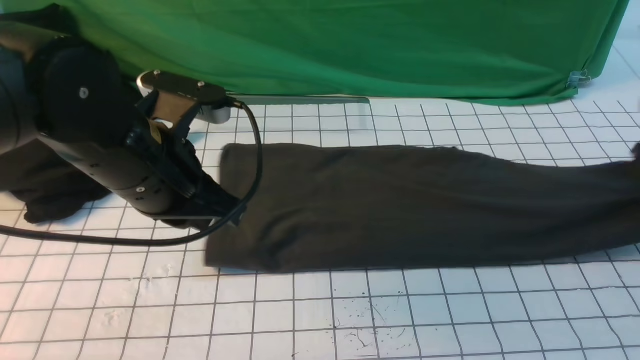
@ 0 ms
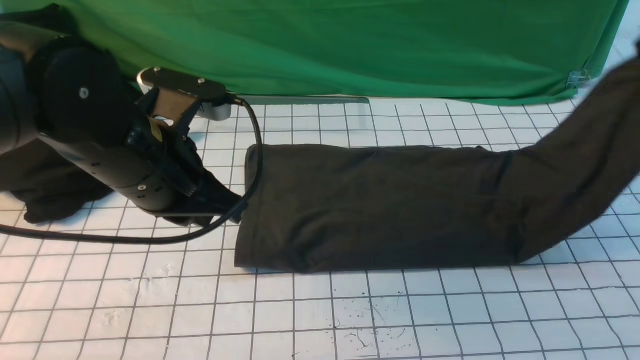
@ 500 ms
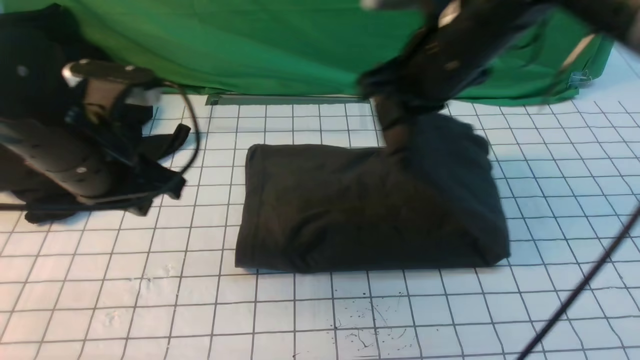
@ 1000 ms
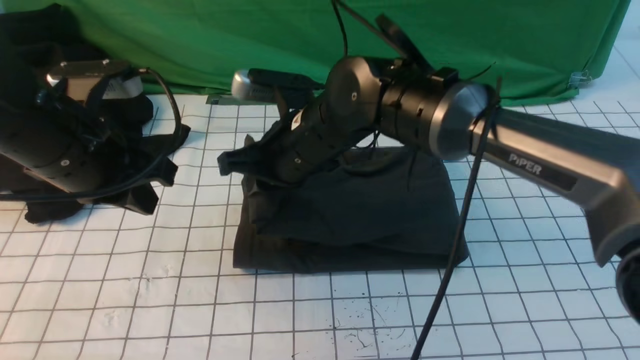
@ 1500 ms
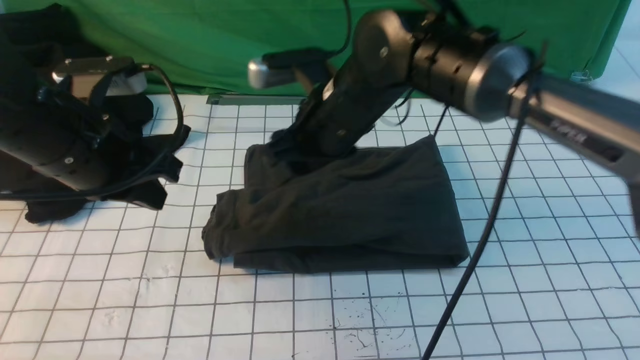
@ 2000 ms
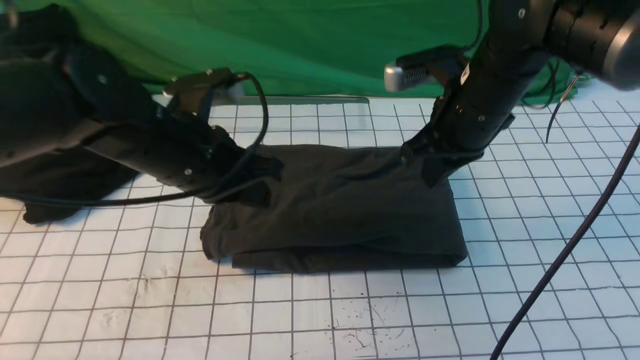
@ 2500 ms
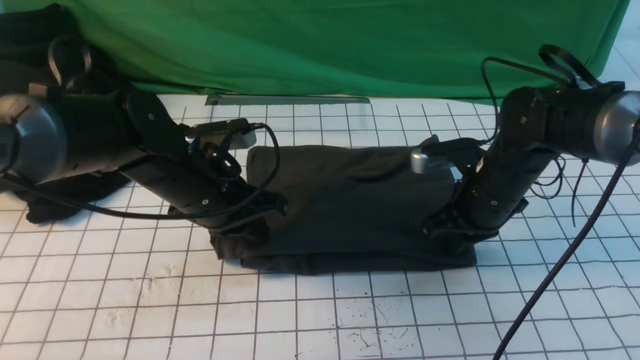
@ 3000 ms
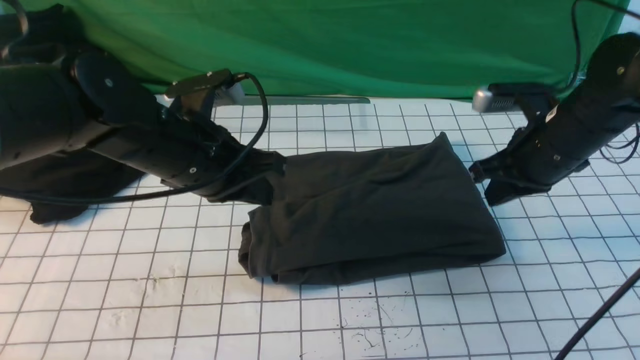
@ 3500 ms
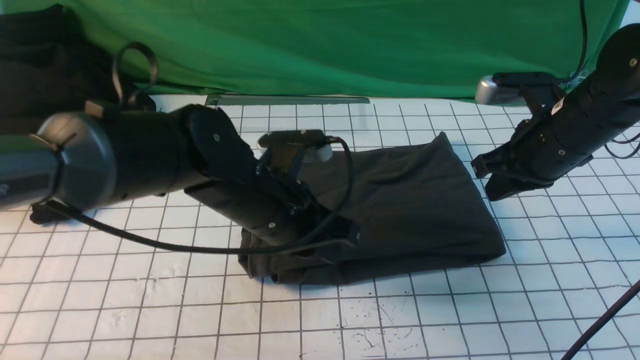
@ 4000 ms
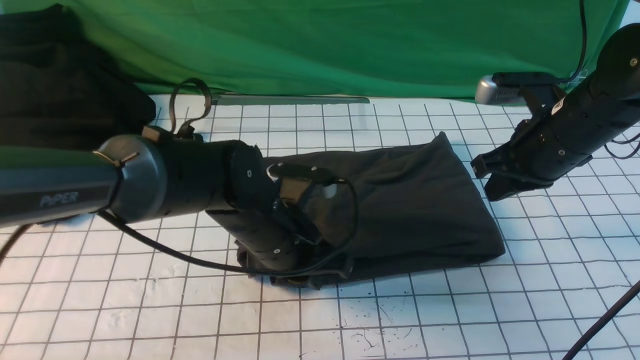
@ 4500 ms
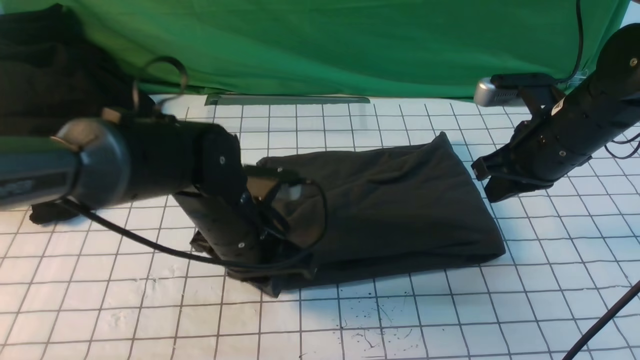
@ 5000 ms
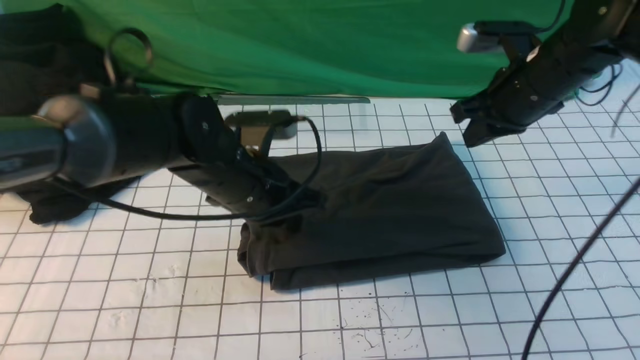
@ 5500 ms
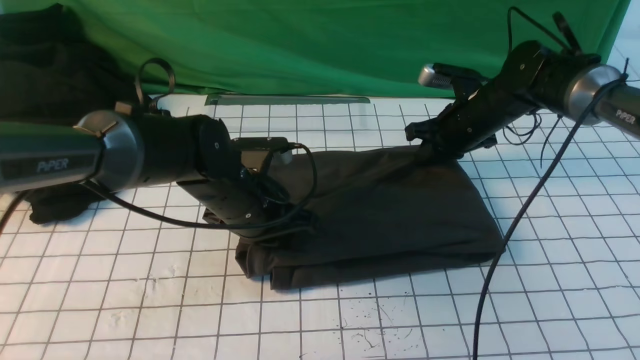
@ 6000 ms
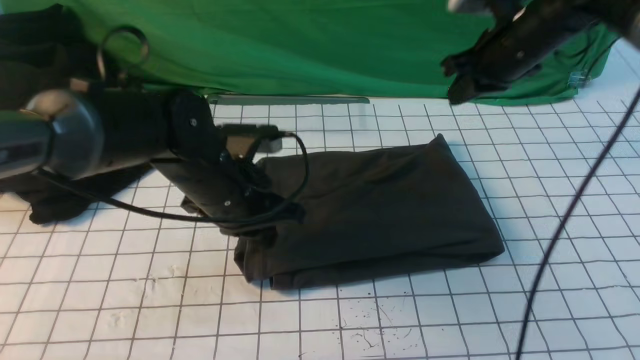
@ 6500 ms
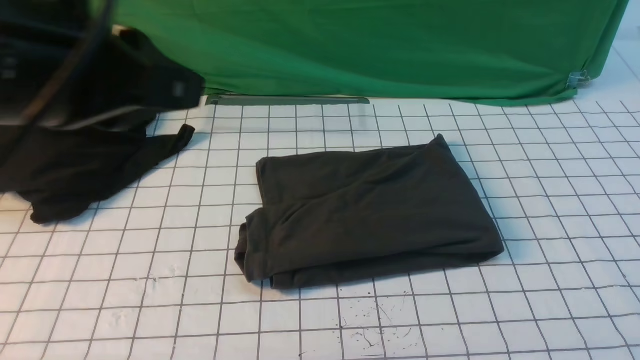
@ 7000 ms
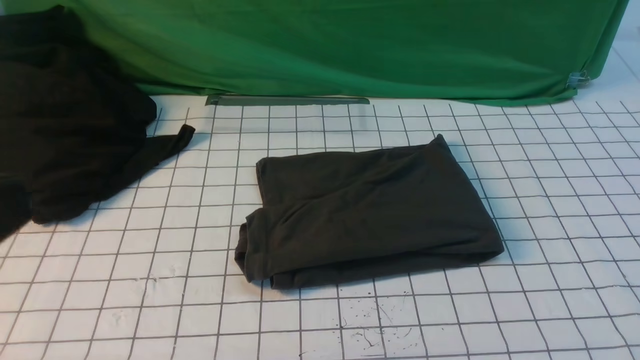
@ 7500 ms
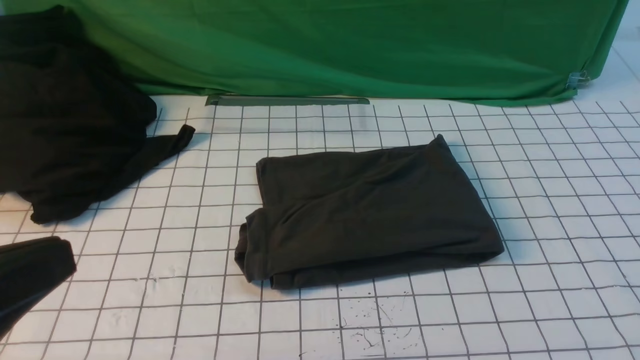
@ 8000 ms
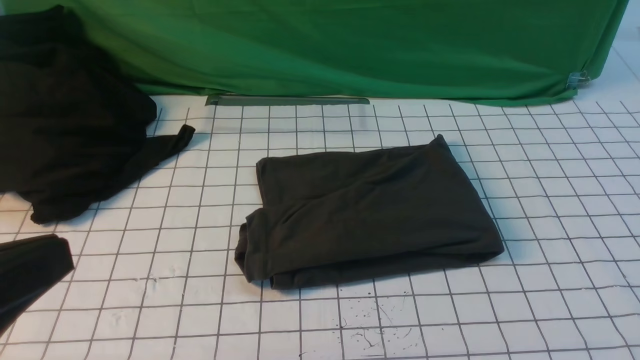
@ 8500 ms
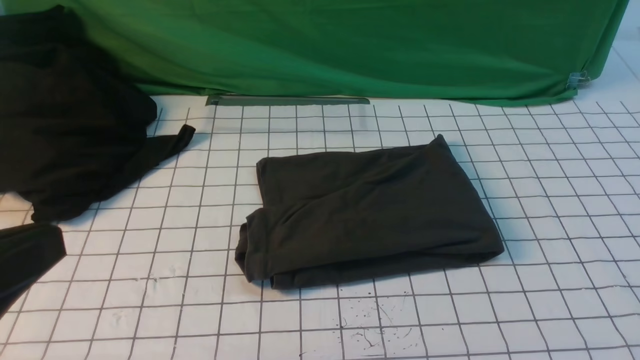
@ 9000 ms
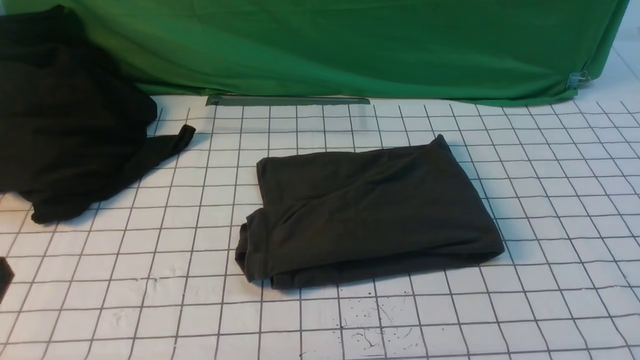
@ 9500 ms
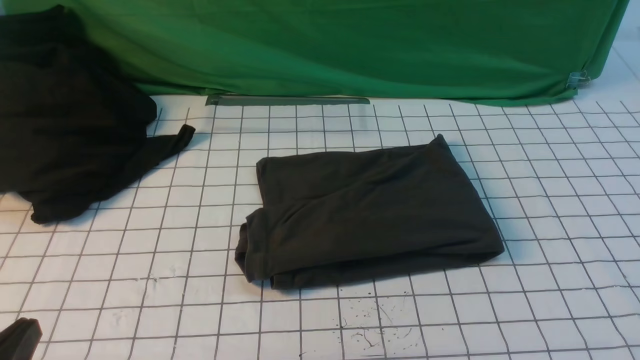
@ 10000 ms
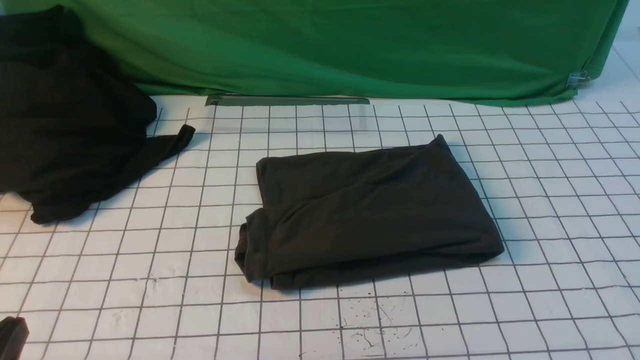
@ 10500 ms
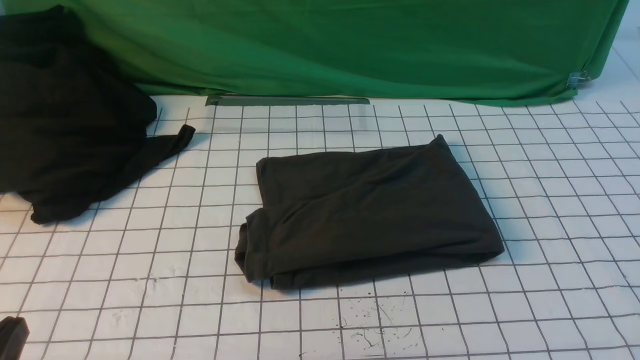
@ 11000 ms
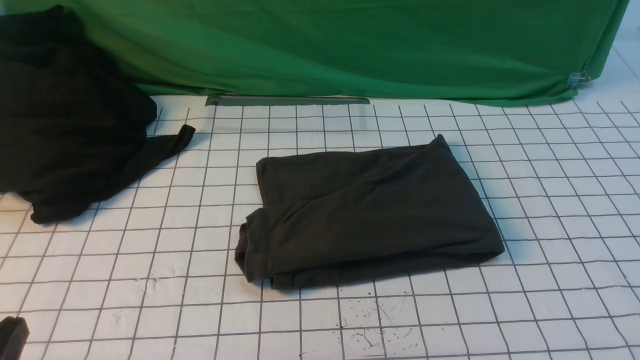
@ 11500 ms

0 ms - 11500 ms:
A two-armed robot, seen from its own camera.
Step, 500 ms - 1500 ms: use the right arm to drag the right edge of the fabric to the left and folds it over the left edge.
0 ms - 2000 ms: The left gripper goes some 5 cm to the left; the right gripper goes roughly 40 cm to the left, and opens.
2000 ms - 4000 ms: The left gripper shifts roughly 15 cm to the right and downward; the right gripper goes approximately 20 cm to the right, and closes its fingers.
4000 ms - 6000 ms: The left gripper shifts by approximately 10 cm. Meanwhile the right gripper shifts some 15 cm forward and downward.
6000 ms - 7500 ms: The right gripper heads backward and upward, covering approximately 50 cm. The left gripper is displaced backward, upward and to the left by roughly 40 cm.
7500 ms - 9500 ms: The left gripper travels downward by approximately 15 cm.
9500 ms - 11500 ms: The left gripper moves downward, some 5 cm.

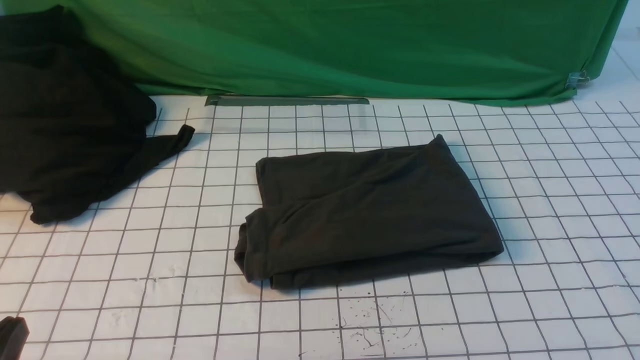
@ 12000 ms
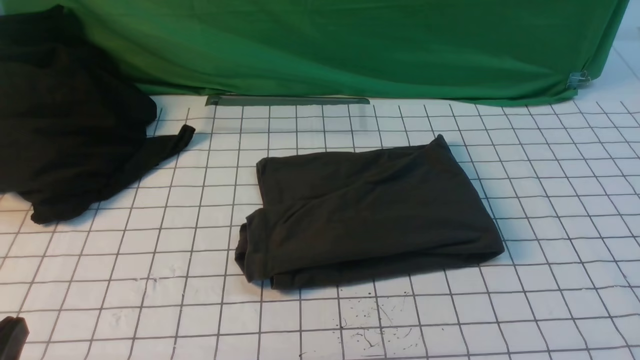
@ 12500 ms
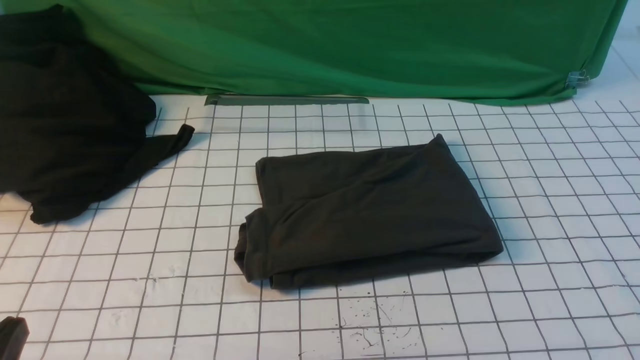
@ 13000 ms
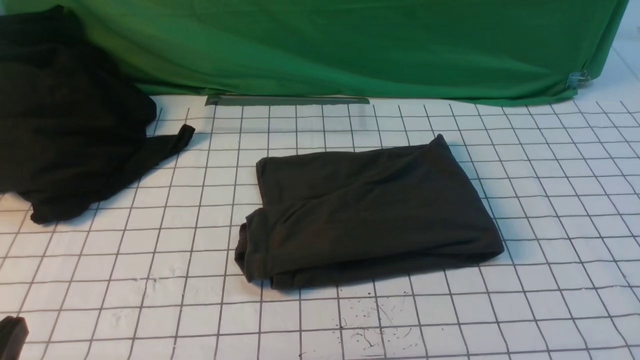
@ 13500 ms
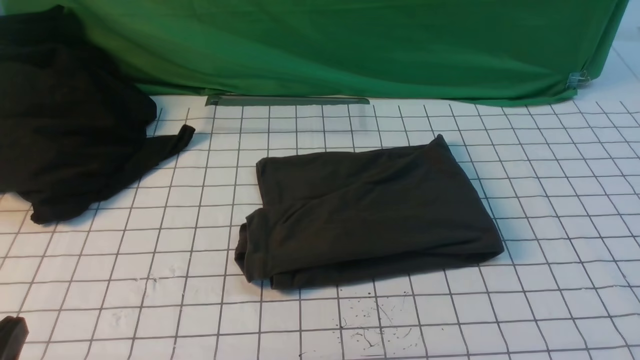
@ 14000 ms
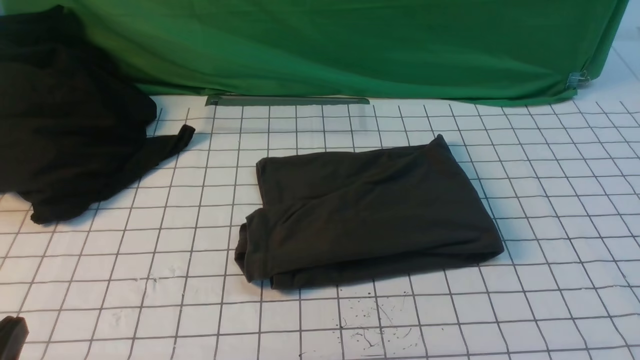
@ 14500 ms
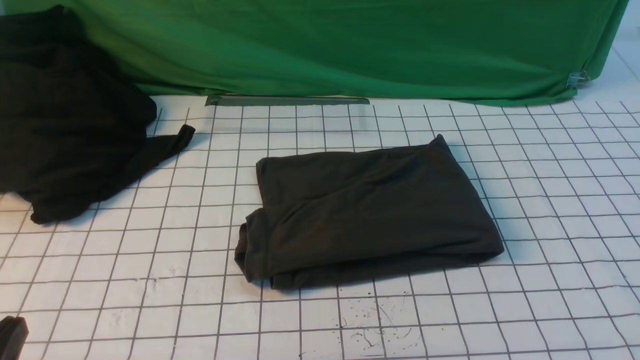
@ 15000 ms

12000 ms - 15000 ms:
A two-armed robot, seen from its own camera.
13500 ms - 15000 ms: Neither gripper changes place.

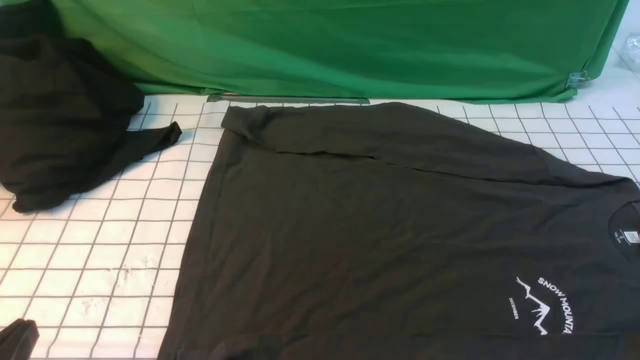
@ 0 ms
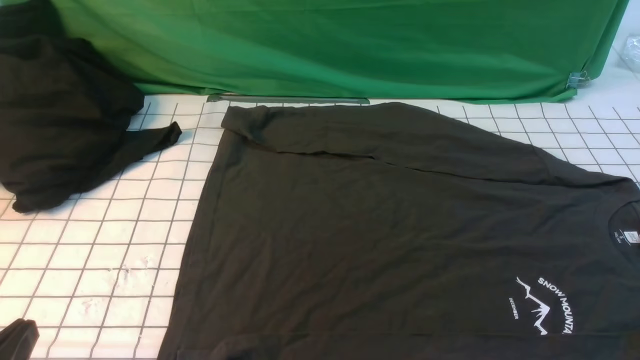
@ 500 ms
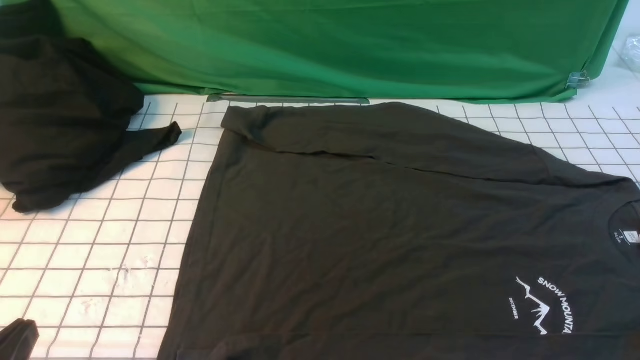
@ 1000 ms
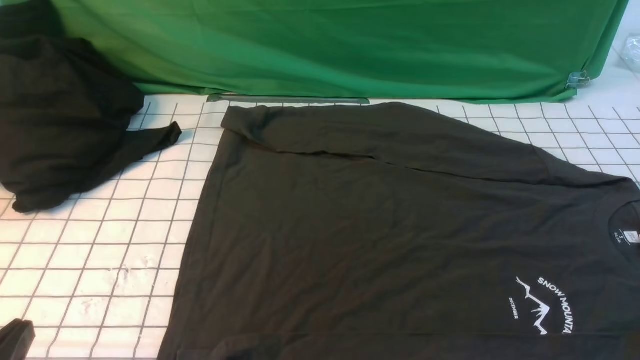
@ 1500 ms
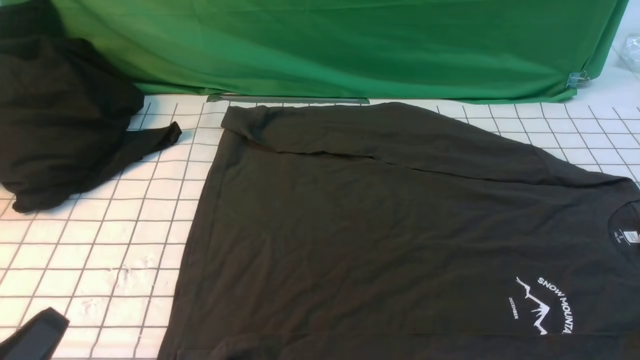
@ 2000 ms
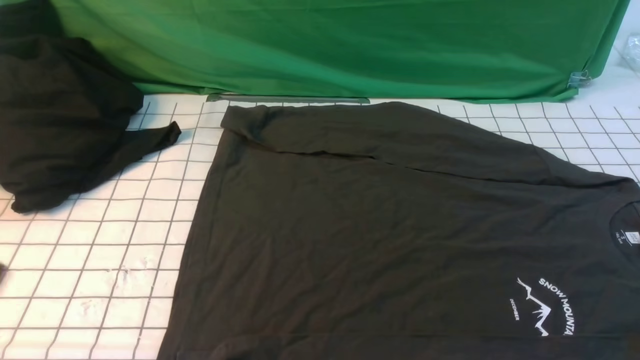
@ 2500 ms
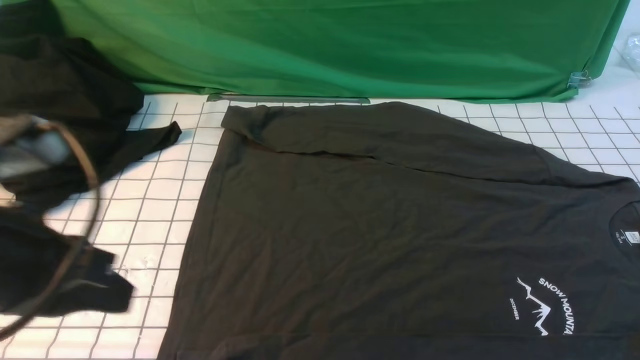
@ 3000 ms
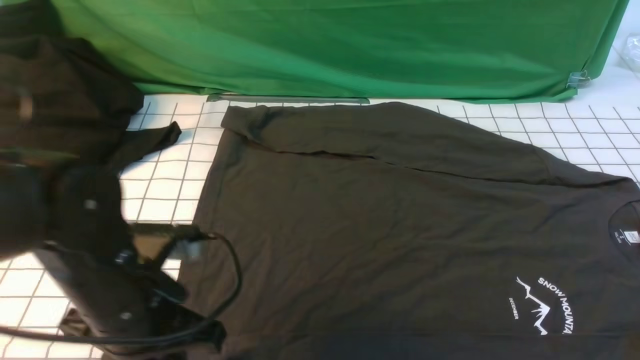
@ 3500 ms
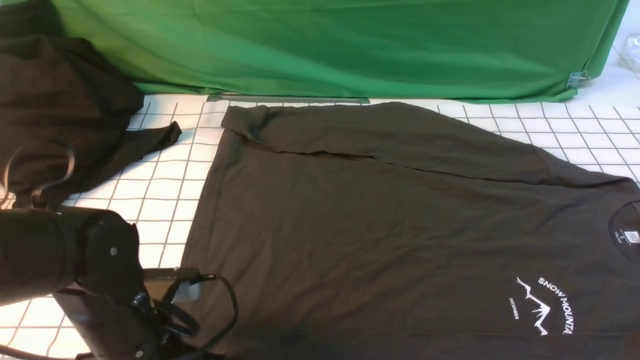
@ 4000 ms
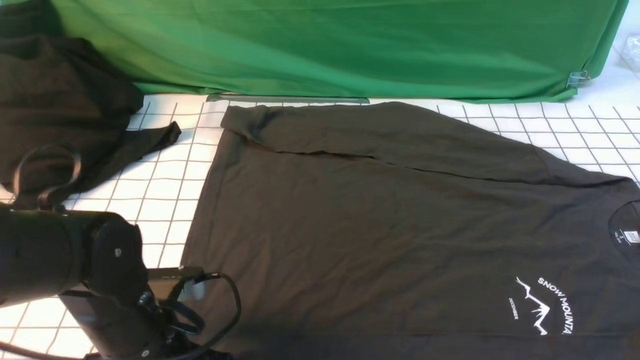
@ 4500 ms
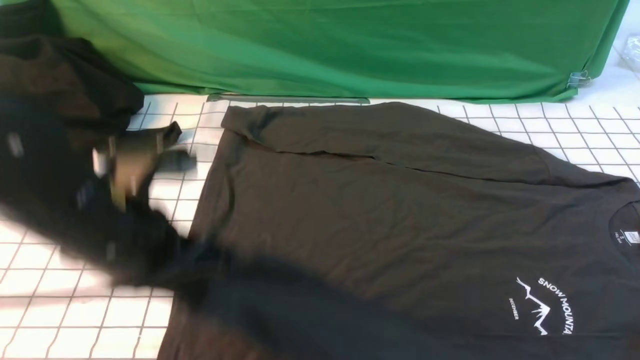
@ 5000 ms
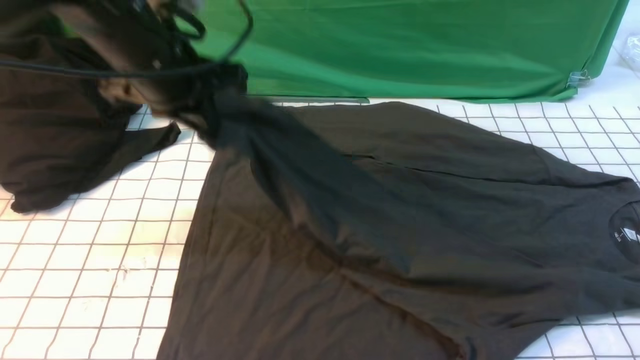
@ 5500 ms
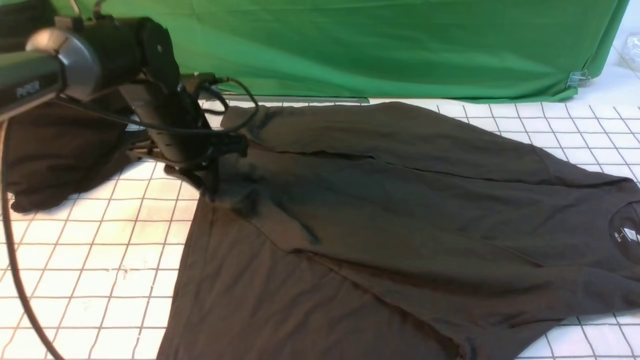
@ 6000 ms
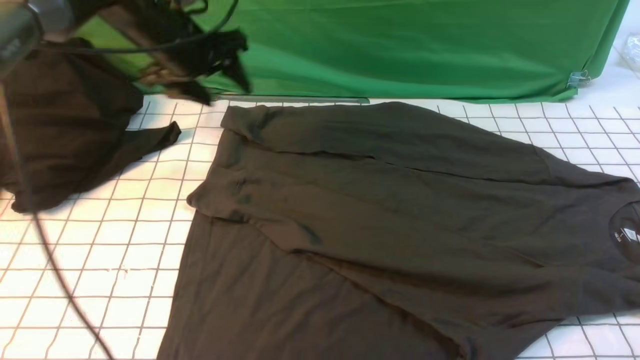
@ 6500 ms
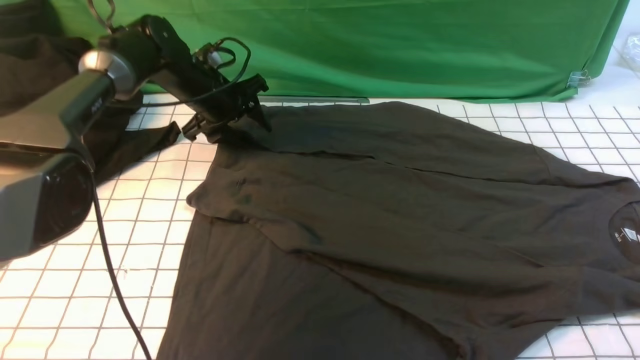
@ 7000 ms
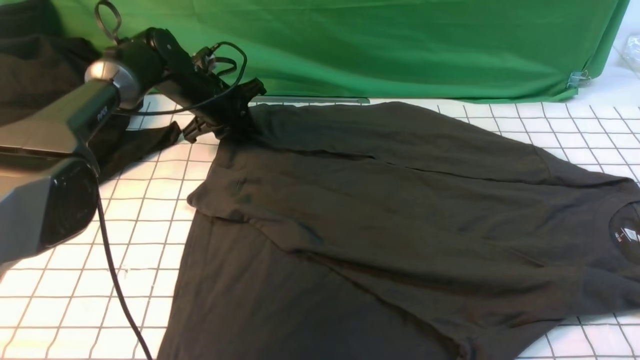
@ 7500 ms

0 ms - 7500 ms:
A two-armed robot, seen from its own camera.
Step, 0 ms - 4500 ms: use the left arm to clamp the cuff closest to it.
Step, 5000 ms - 6000 ms: use the left arm to drag and place the cuff at the centered position on the left edge of the fabric.
Step, 6500 ms - 7500 ms: use the left arm to clamp the cuff farthest from it.
2000 ms - 4000 ms: The left gripper shifts about 15 cm forward and to the right, and opens up; the right gripper travels upward by roughly 15 cm.
4000 ms - 5500 ms: The left gripper moves forward and upward, about 25 cm, and closes up.
5500 ms - 7500 ms: The left gripper heads forward and downward, covering some 25 cm, and opens, then closes again.
